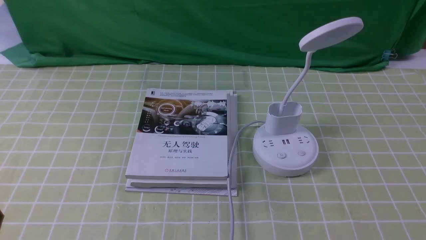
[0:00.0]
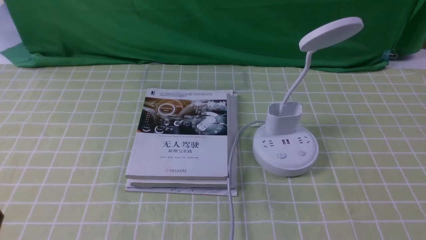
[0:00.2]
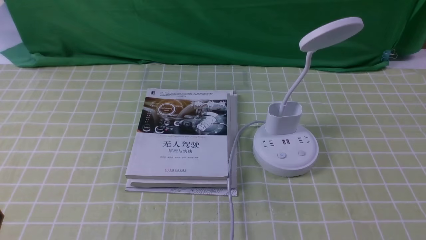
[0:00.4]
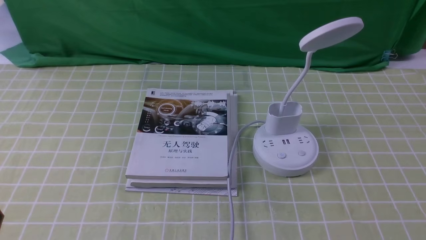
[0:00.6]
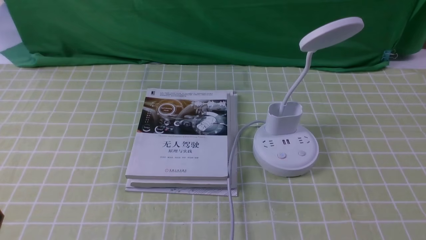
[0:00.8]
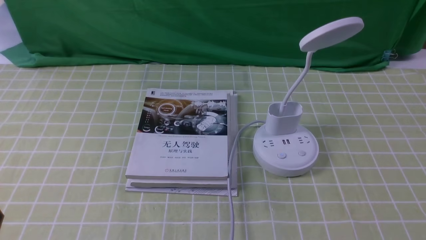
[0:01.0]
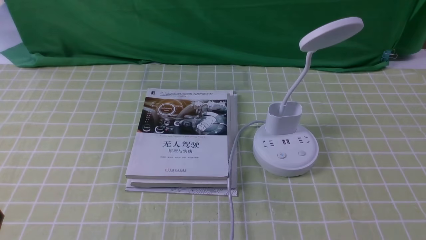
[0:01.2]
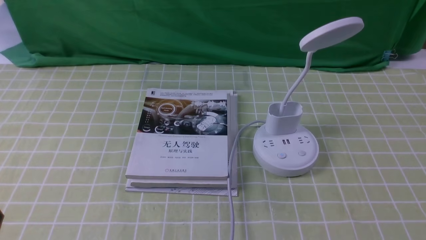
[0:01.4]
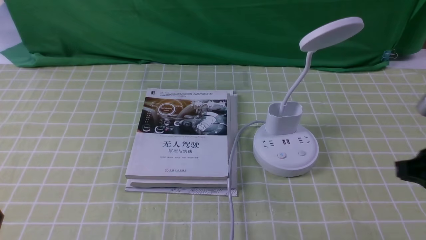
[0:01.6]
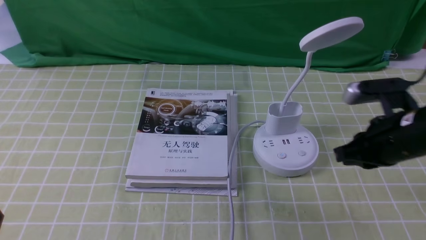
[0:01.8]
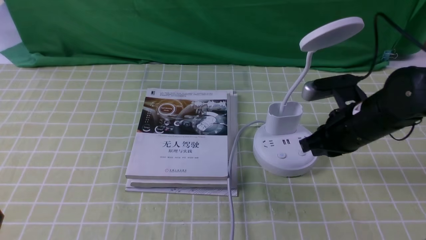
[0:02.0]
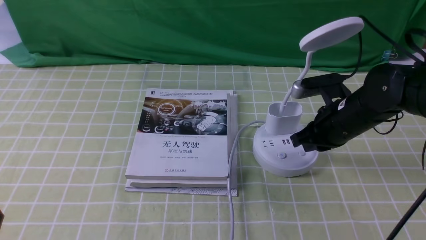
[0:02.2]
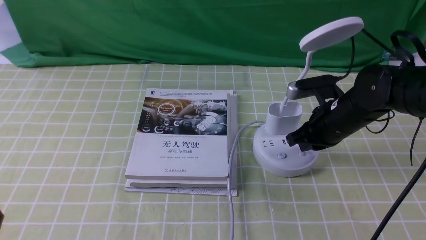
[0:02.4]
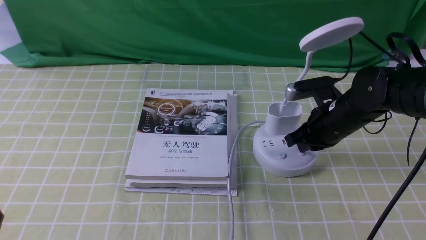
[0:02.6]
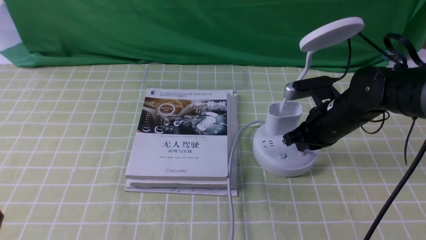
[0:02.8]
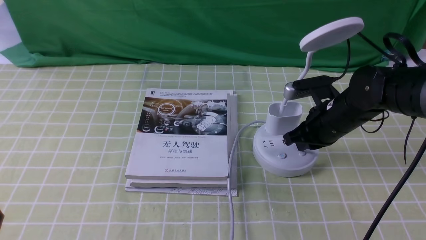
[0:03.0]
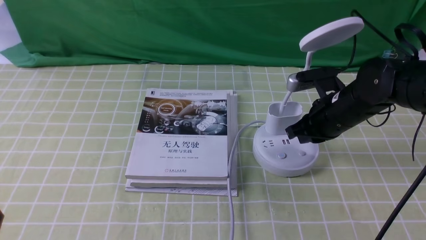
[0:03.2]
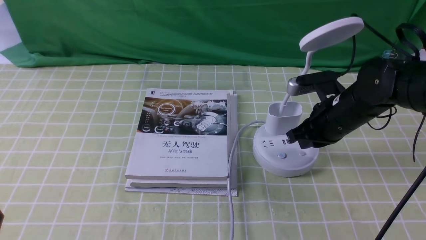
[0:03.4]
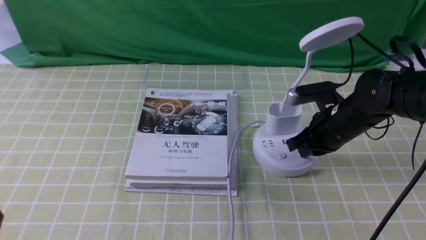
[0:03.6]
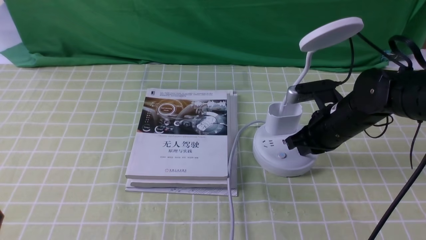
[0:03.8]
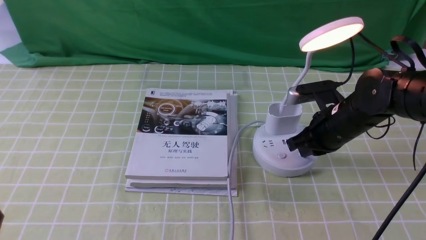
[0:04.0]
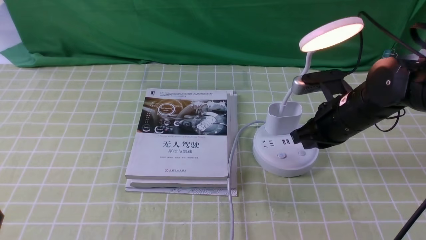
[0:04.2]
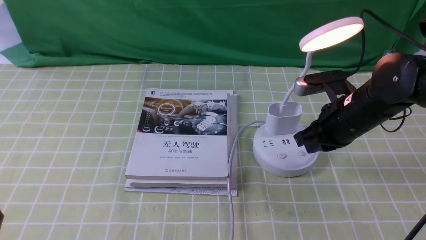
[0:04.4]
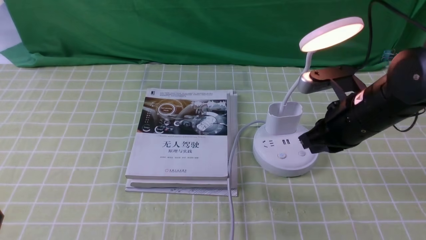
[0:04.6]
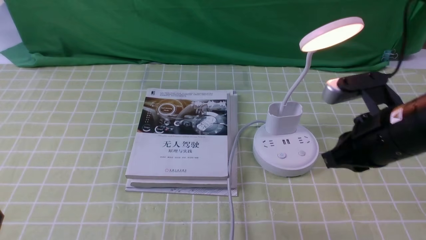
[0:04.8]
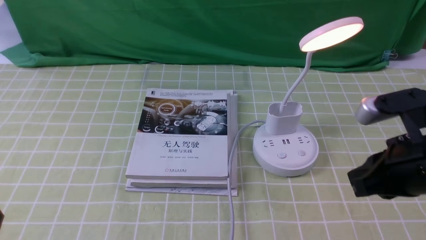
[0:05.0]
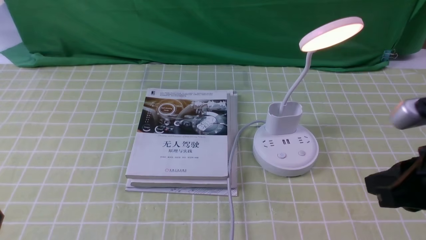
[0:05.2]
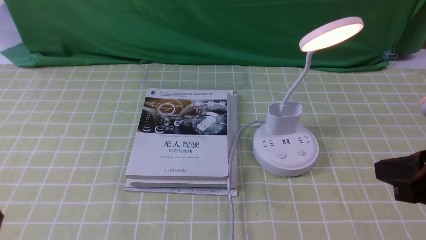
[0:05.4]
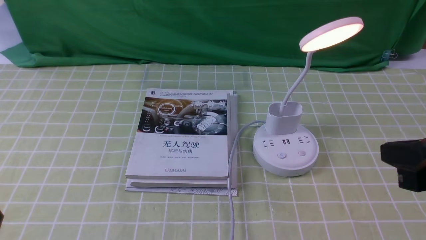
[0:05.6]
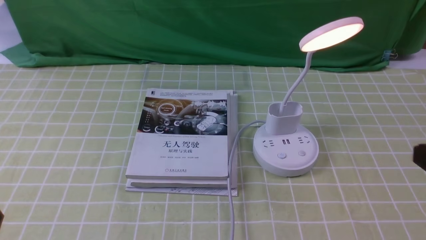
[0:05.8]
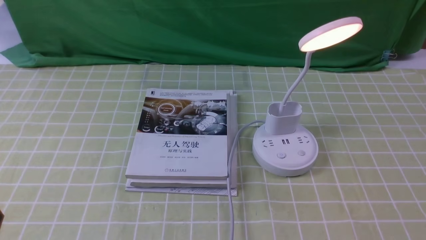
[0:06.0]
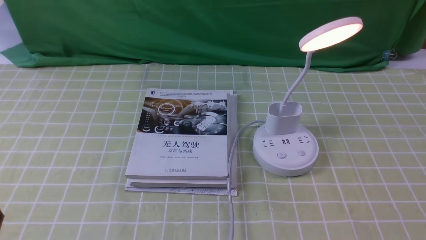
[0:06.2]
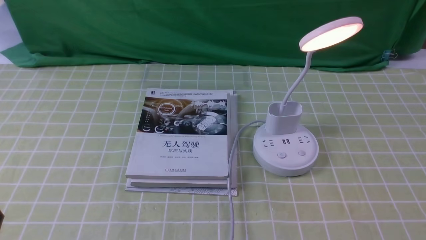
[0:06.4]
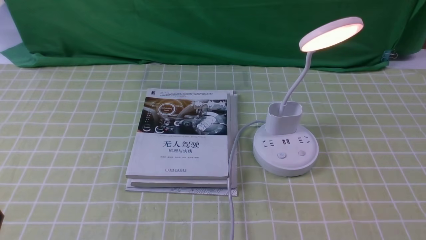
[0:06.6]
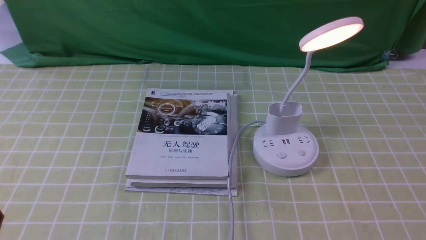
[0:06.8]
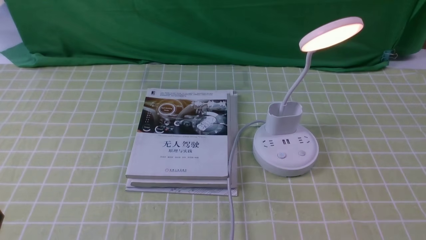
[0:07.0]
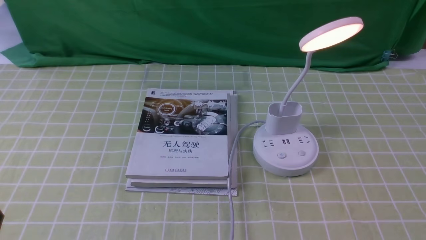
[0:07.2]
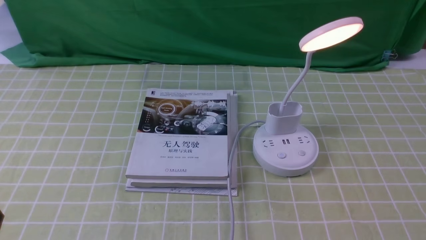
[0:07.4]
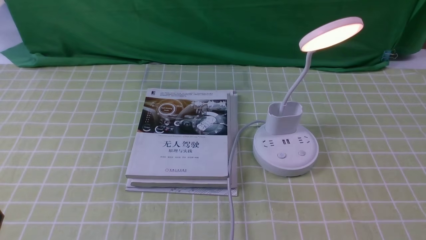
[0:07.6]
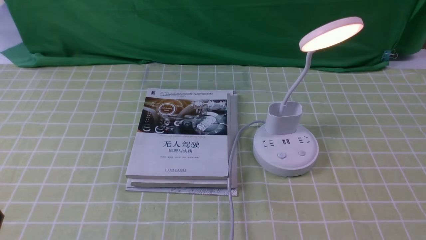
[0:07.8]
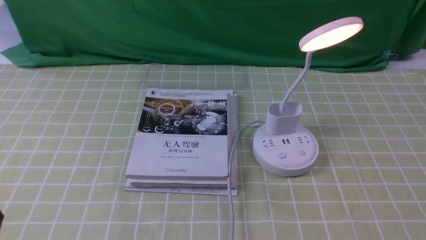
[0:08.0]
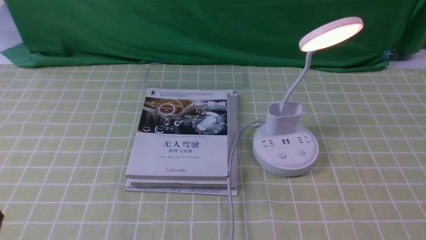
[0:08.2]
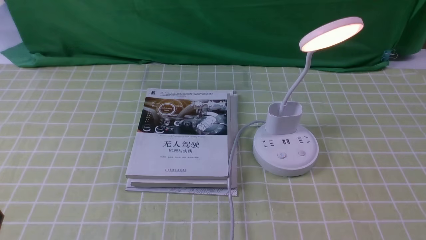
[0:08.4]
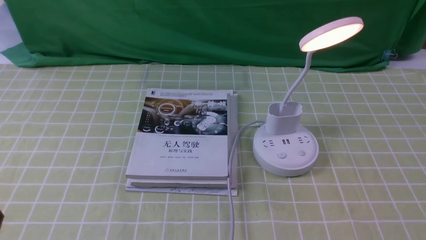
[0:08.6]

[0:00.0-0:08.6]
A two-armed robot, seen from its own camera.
Step, 0:00.0 to 0:04.2: use the right arm to press the button switch on the lamp holder.
0:01.4 to 0:02.8: The right gripper moves forward, to the left and downward, some 25 cm.
0:02.8 to 0:04.4: The right gripper changes place by some 5 cm.
0:04.4 to 0:05.8: The right gripper shifts some 25 cm backward and to the right.
